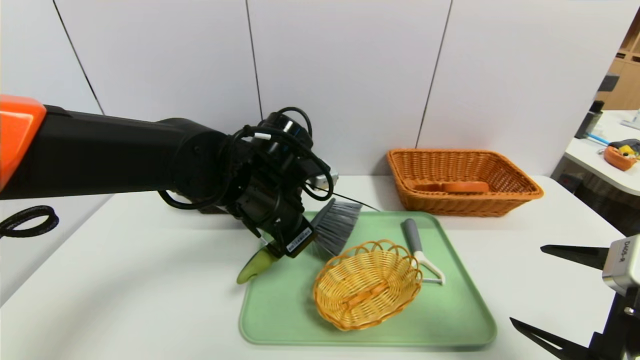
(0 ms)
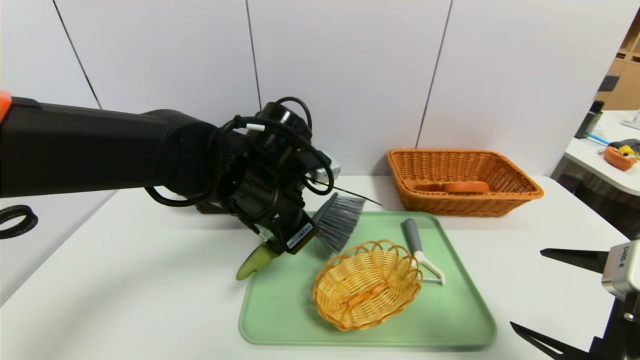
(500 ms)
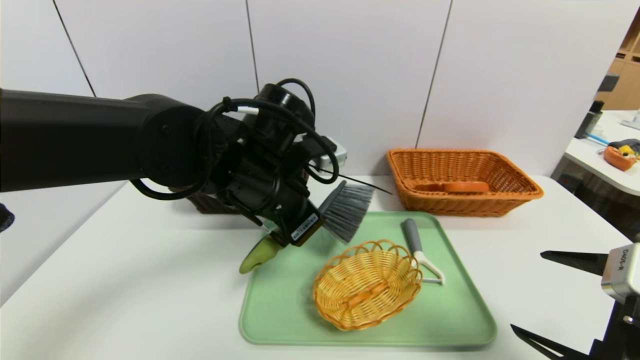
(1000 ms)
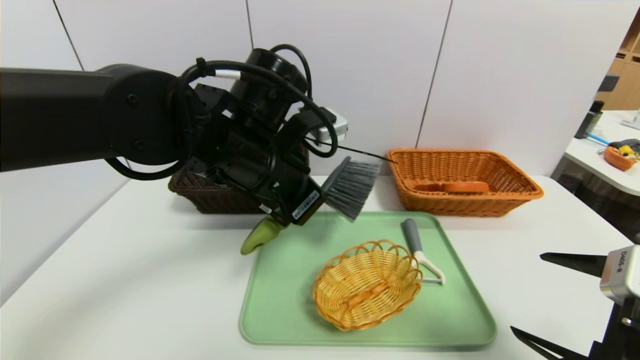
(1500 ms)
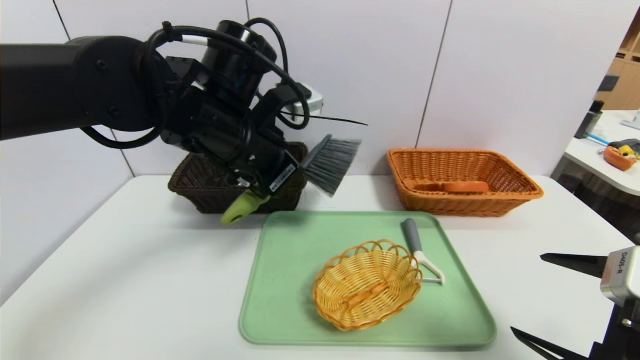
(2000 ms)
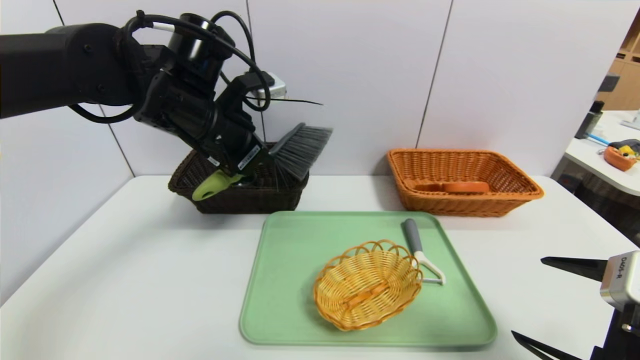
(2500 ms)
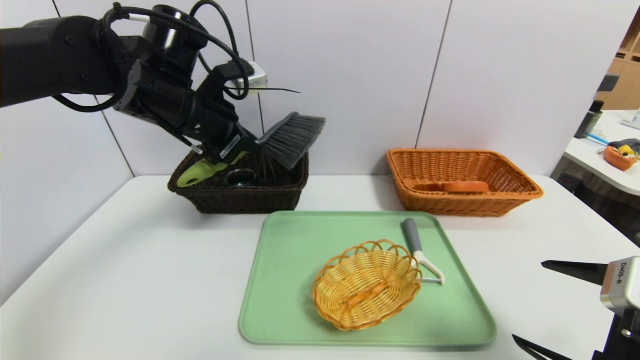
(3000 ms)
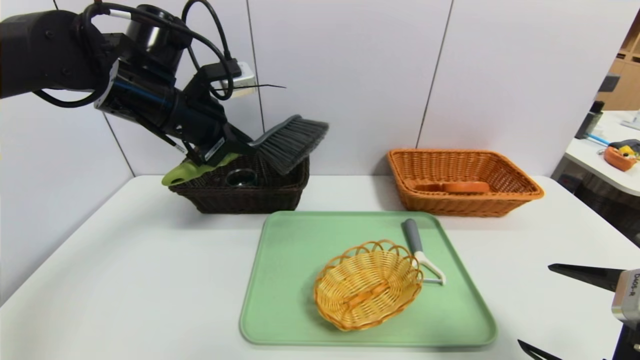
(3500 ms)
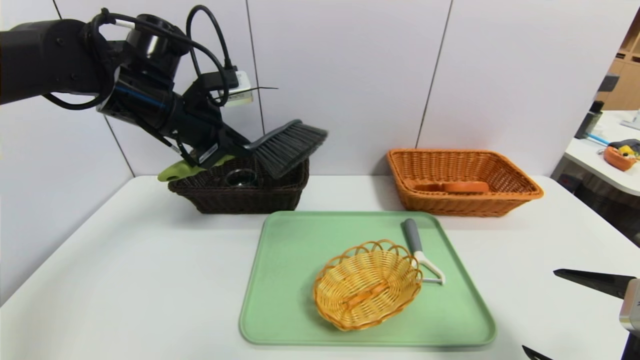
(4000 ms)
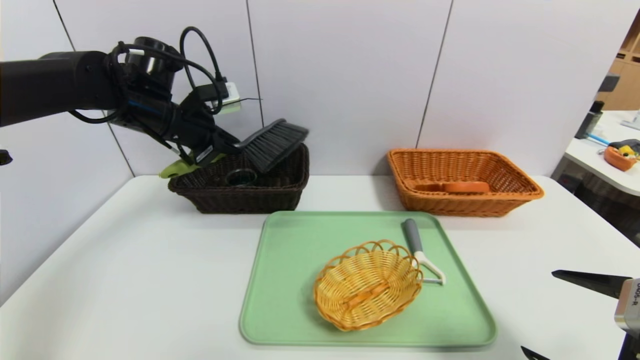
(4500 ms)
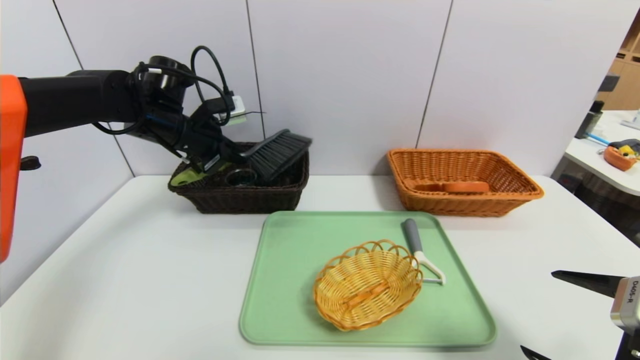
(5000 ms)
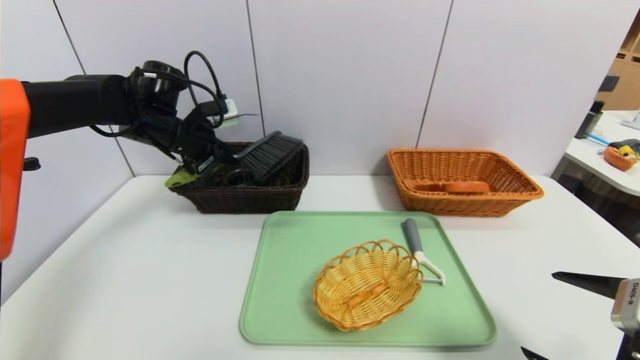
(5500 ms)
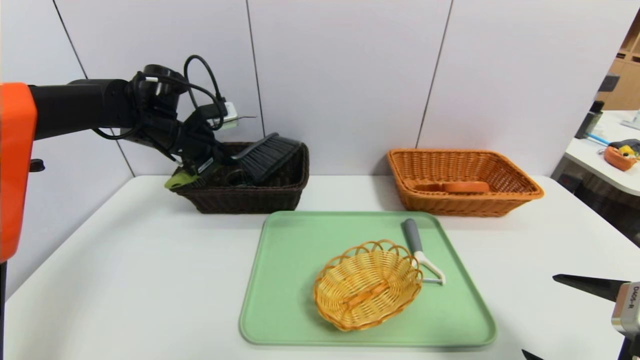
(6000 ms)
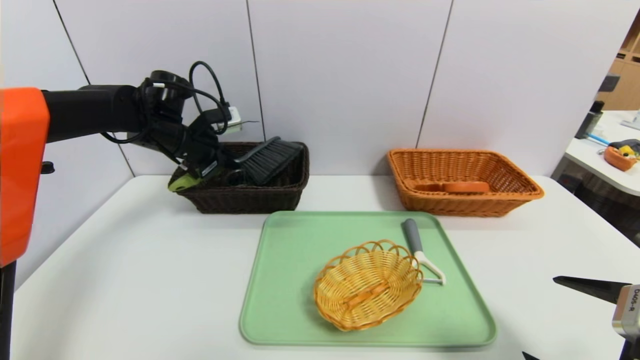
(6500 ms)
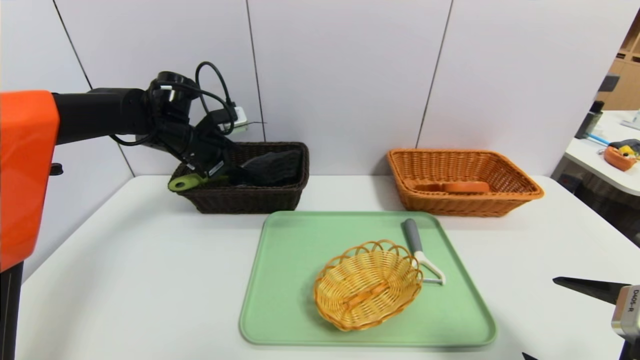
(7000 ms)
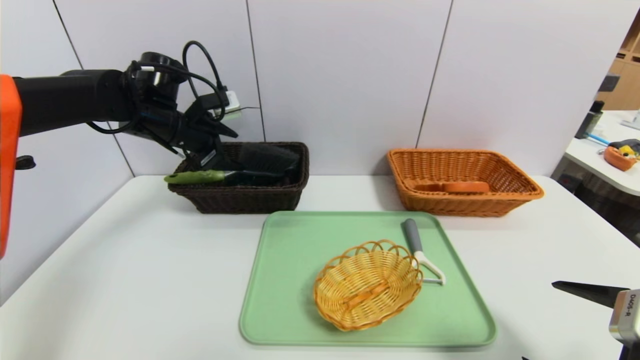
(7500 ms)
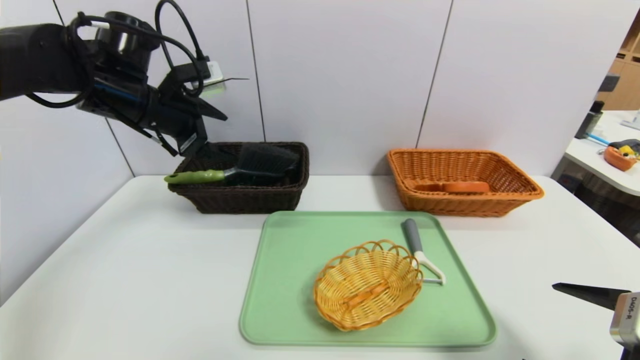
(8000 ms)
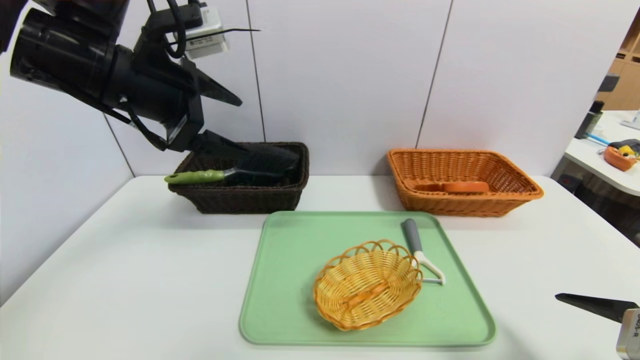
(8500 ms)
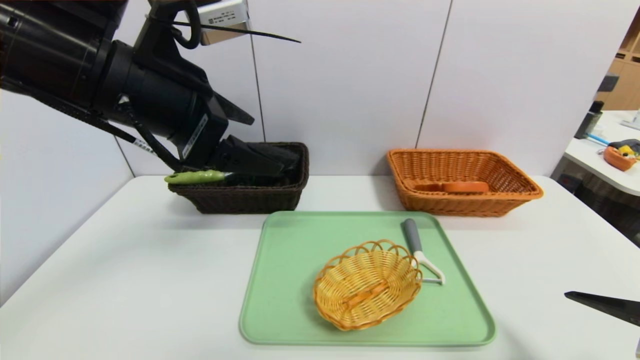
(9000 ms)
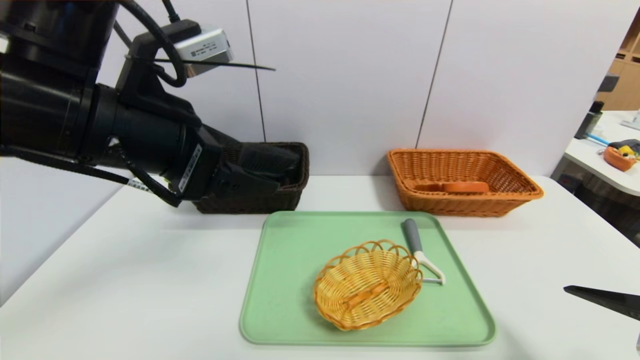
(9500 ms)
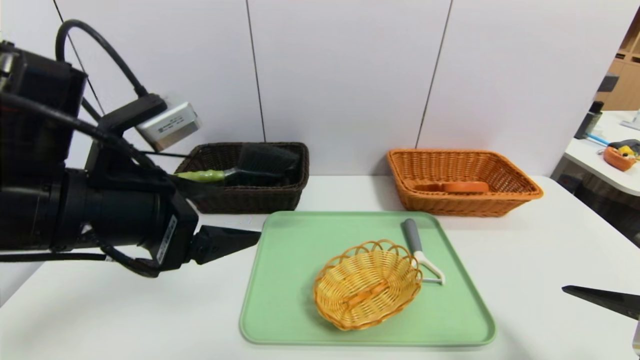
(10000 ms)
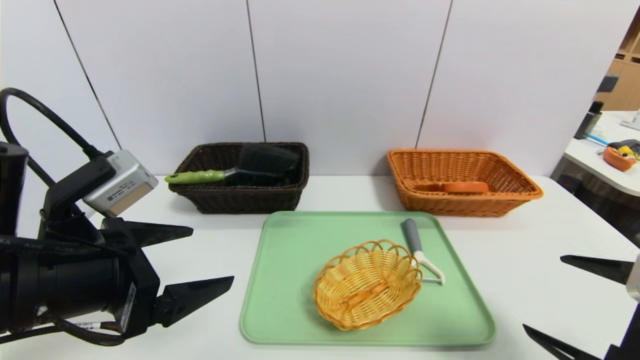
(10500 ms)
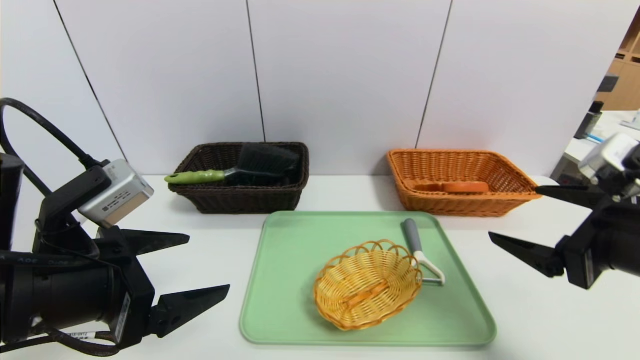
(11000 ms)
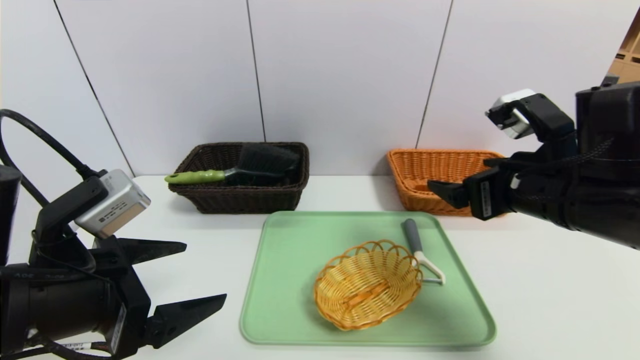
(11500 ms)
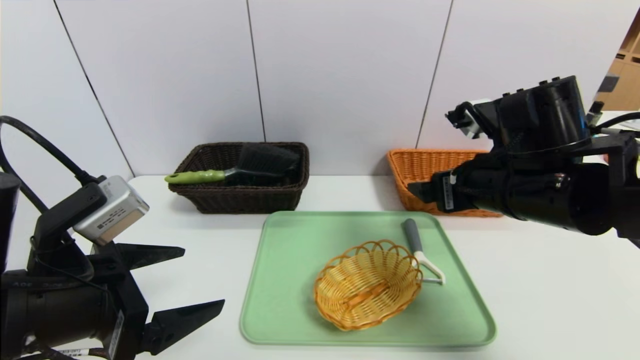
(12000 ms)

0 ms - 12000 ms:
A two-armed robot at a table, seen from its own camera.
Task of the whole recording: place the food in the right basket with the right gripper, and place the non food items in the left basket with the left gripper.
Step, 0 ms - 8000 ms: Grasp the broom and put it in the left basket.
0 ms - 2000 ms: The left gripper travels upward by approximately 10 cm.
2000 ms - 4000 ms: The left gripper is displaced to the left and forward by some 10 cm.
4000 ms - 6000 ms: The left gripper goes roughly 10 cm forward and downward.
6000 ms - 8000 ms: The left gripper heads upward and backward, covering approximately 10 cm, and opens.
8000 ms - 10000 ms: The left gripper moves backward, approximately 20 cm.
10000 ms - 12000 ms: The left gripper moves downward, about 5 cm, while the right gripper is displaced forward, to the left and upward by about 20 cm.

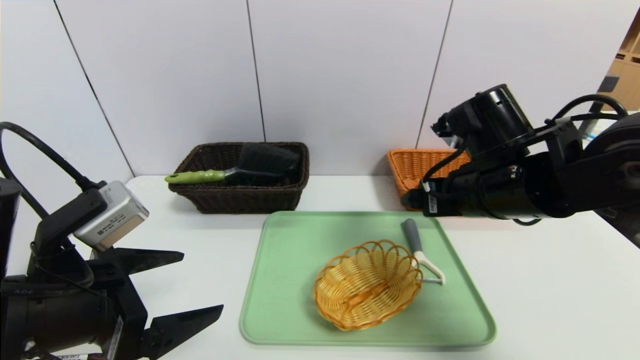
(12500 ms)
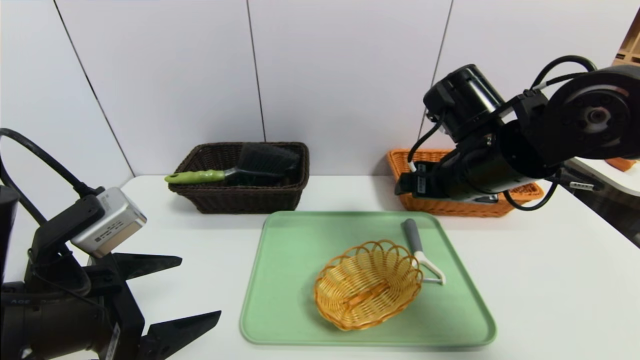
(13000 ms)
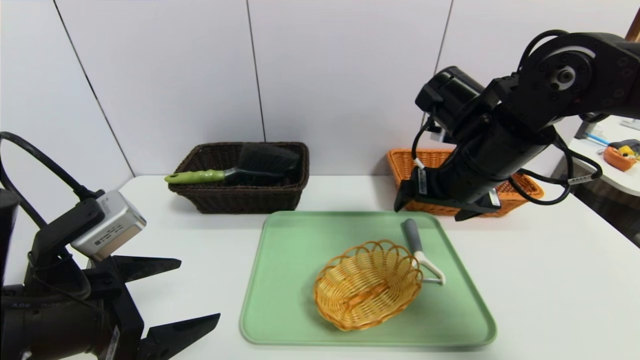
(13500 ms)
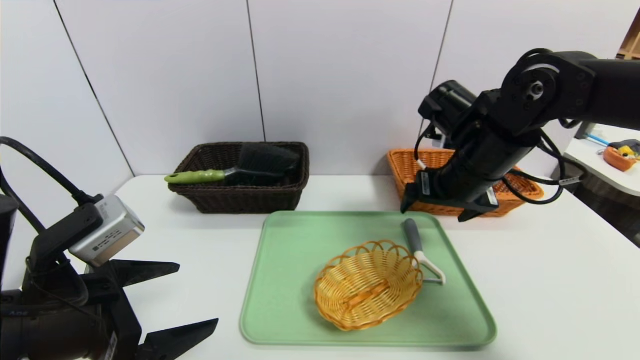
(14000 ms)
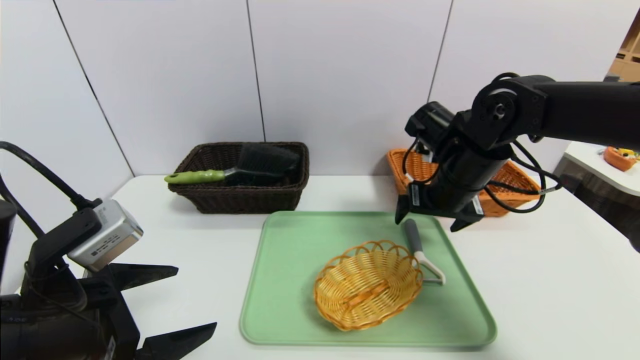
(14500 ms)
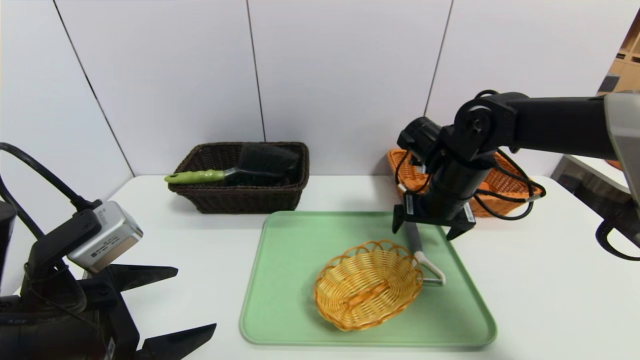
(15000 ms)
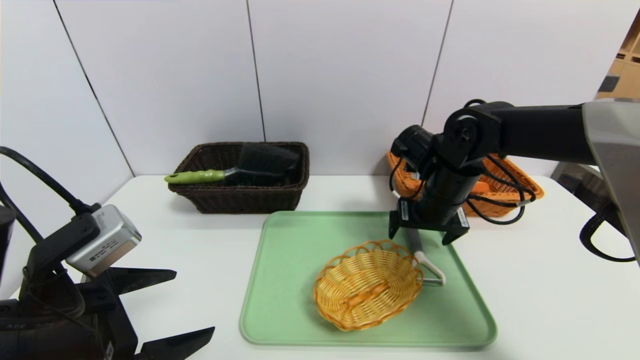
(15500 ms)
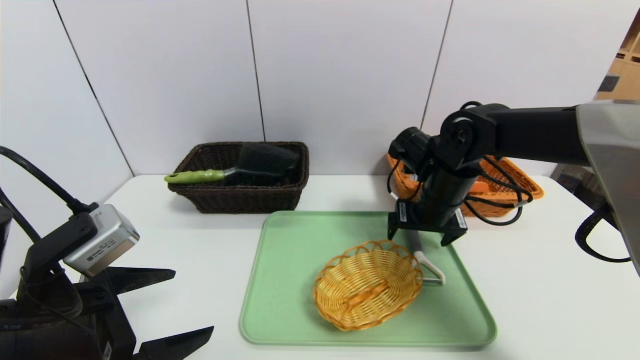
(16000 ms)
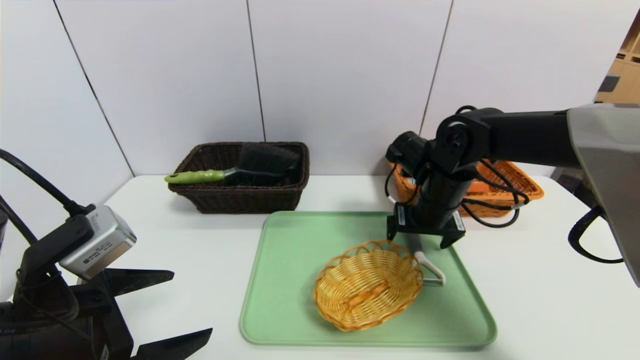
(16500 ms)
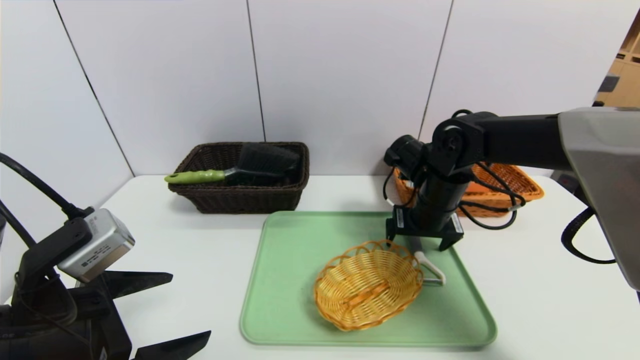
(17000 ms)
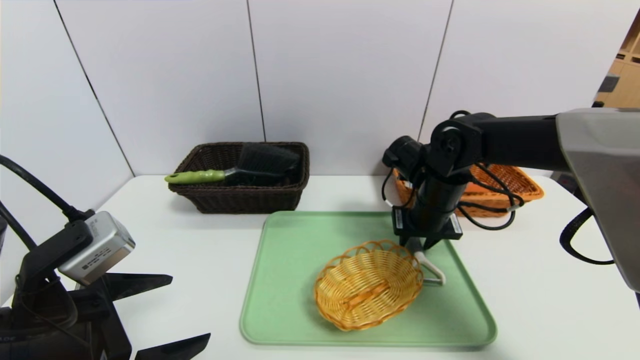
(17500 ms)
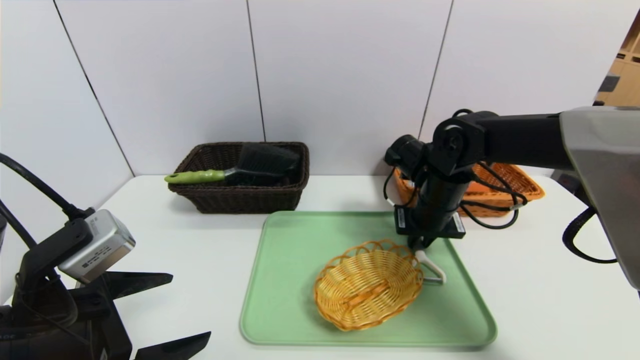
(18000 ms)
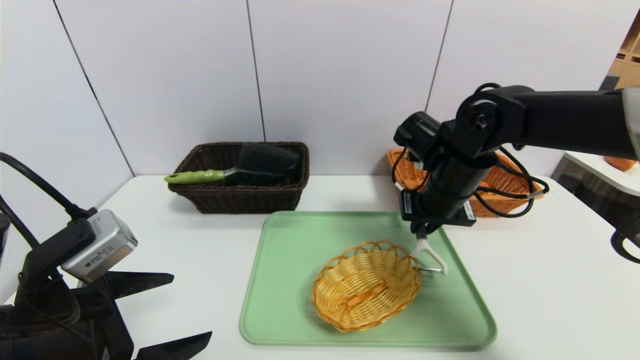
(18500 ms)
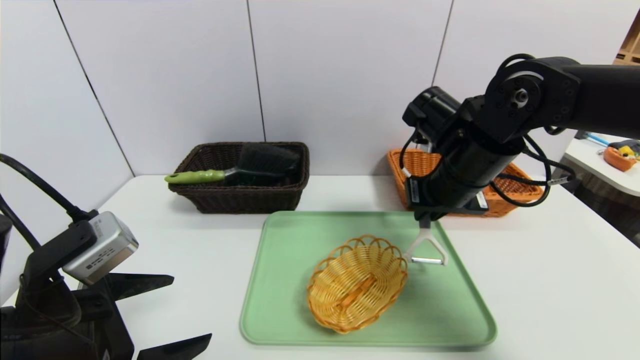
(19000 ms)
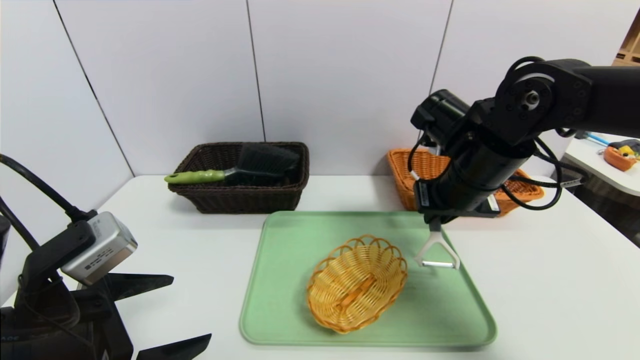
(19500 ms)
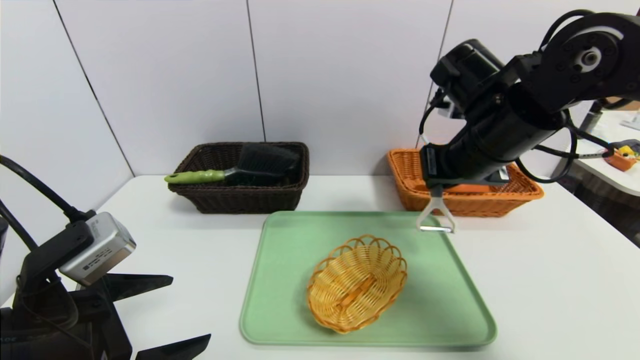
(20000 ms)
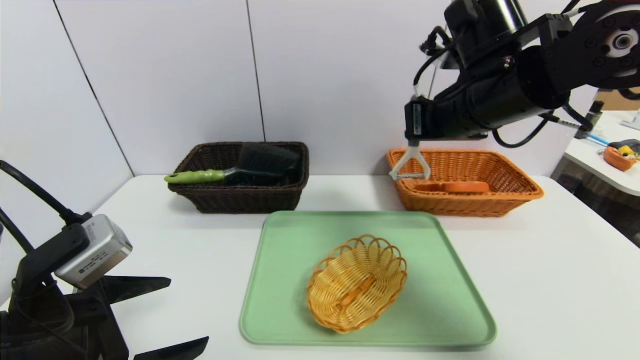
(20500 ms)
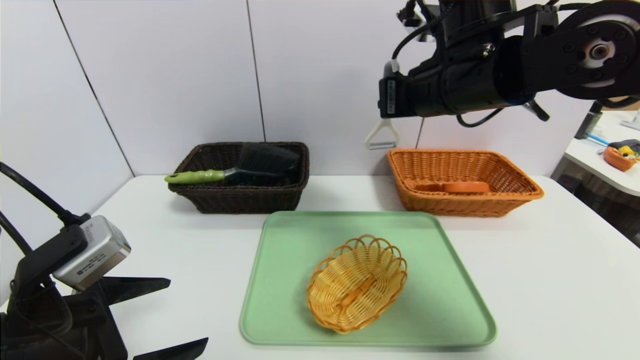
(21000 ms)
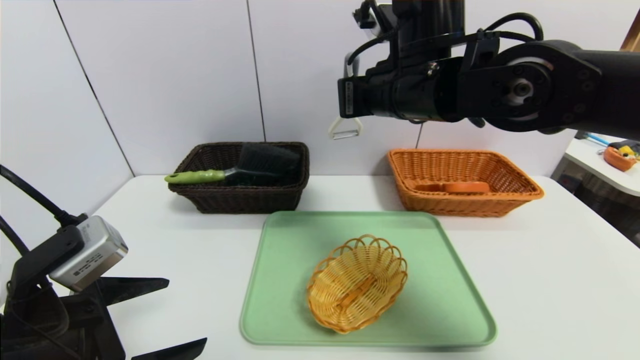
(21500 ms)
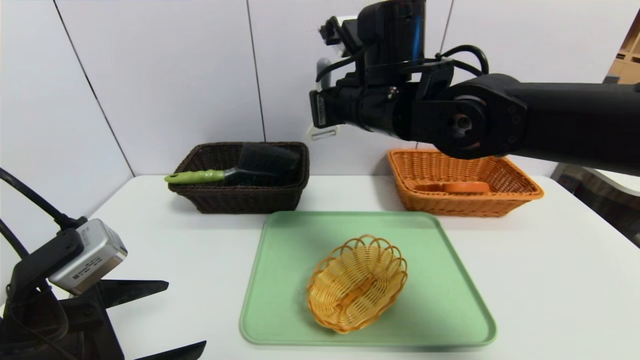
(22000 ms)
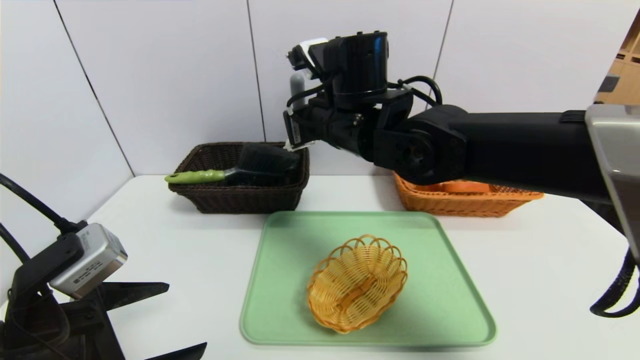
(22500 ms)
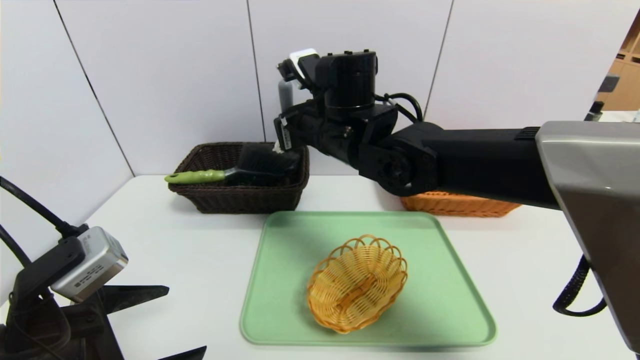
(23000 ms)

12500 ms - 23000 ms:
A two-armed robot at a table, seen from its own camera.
Task of the whole recording: place the food in the right basket with the right gripper, and place the non food items in the left basket with the left gripper.
12500 ms - 14500 ms: The right gripper moves forward, some 10 cm.
14500 ms - 16500 ms: The grippers move only a little.
16500 ms - 19000 ms: The right gripper travels upward by some 5 cm, and closes.
19000 ms - 21000 ms: The right gripper is displaced upward by some 10 cm.
21000 ms - 23000 ms: The right gripper travels to the left and downward by about 15 cm.
